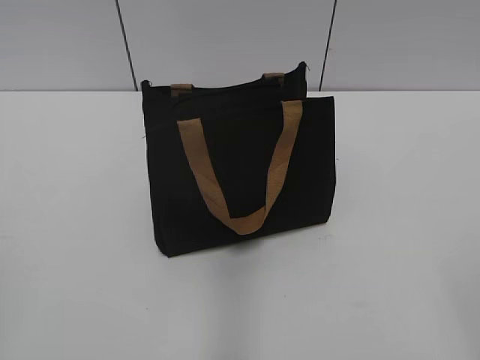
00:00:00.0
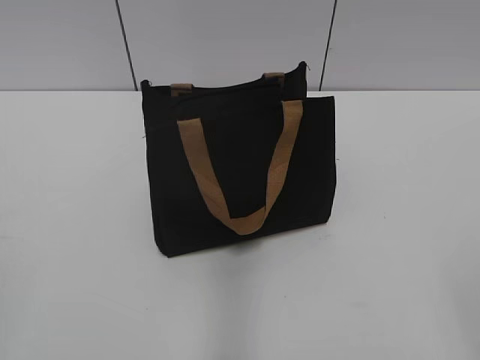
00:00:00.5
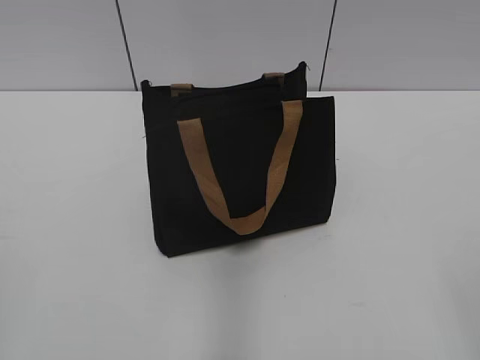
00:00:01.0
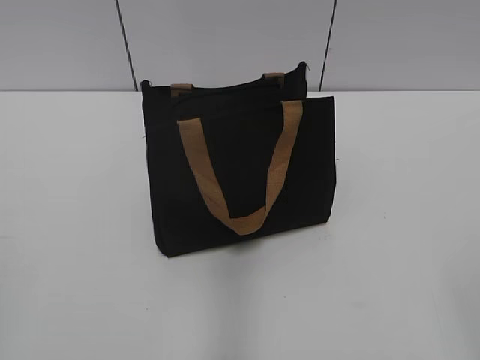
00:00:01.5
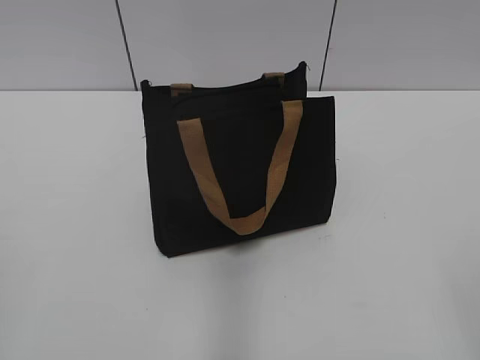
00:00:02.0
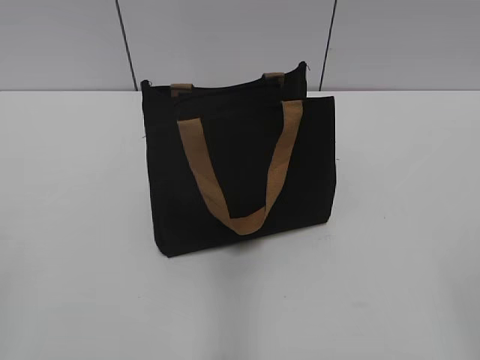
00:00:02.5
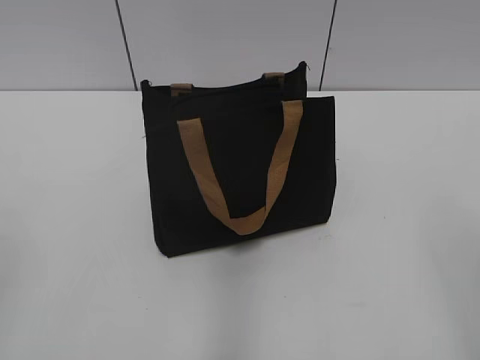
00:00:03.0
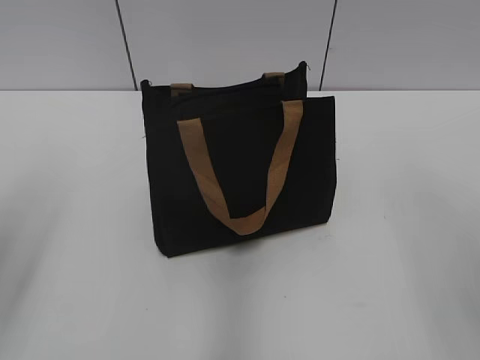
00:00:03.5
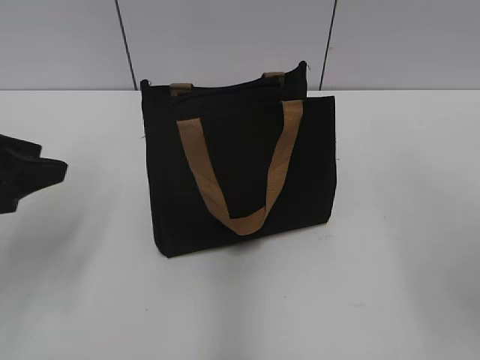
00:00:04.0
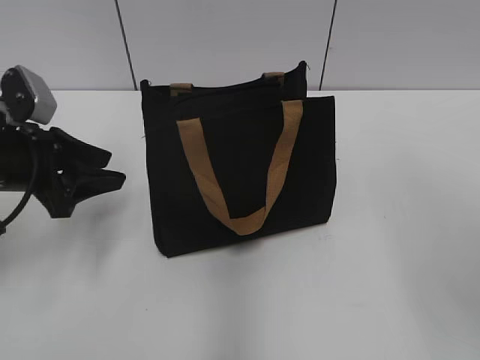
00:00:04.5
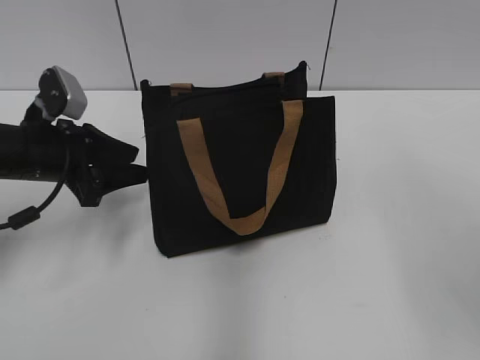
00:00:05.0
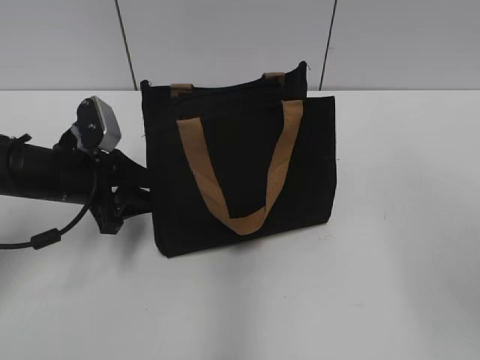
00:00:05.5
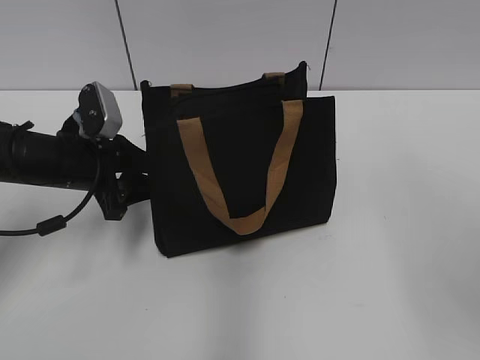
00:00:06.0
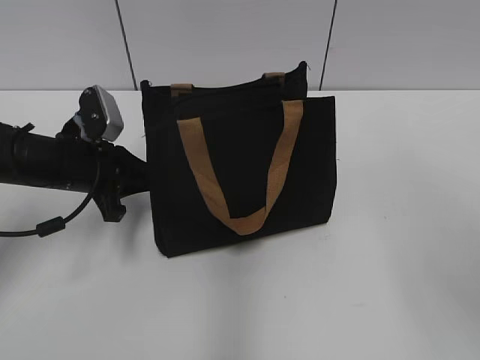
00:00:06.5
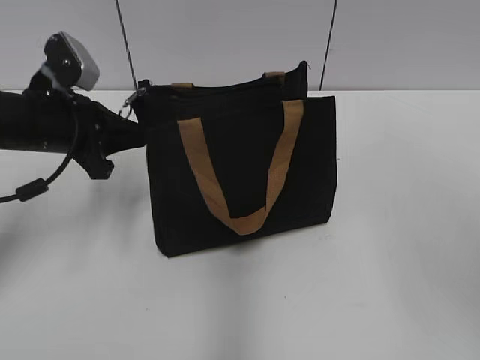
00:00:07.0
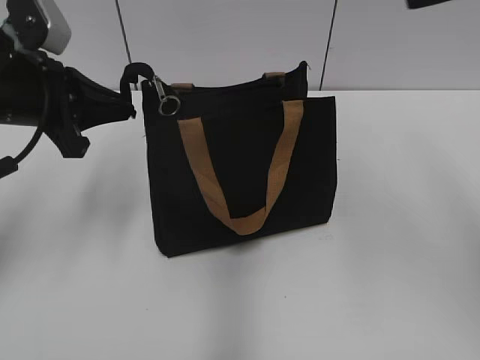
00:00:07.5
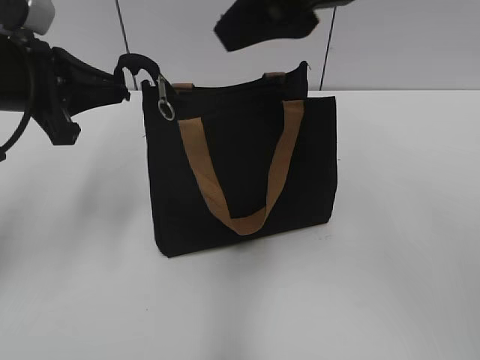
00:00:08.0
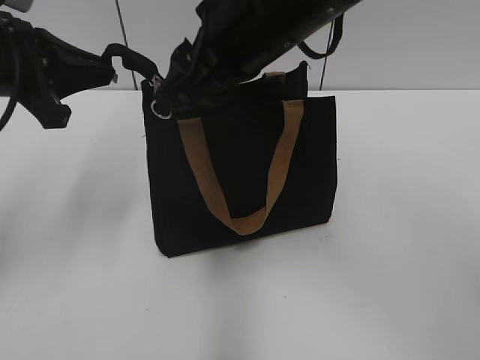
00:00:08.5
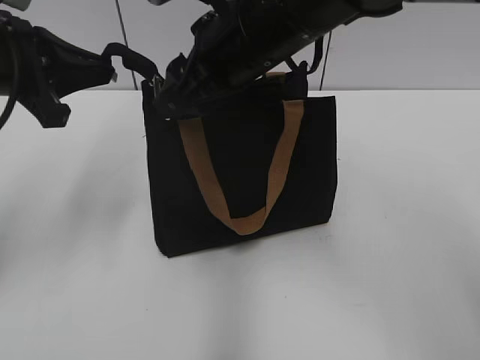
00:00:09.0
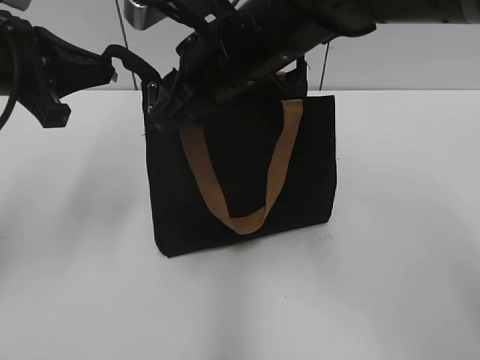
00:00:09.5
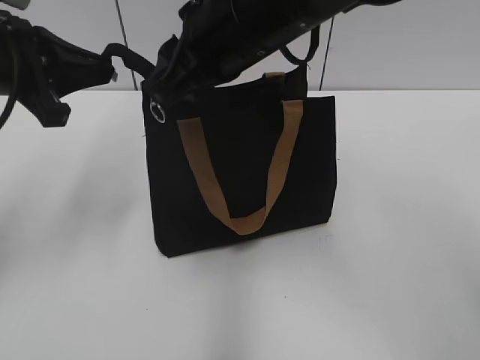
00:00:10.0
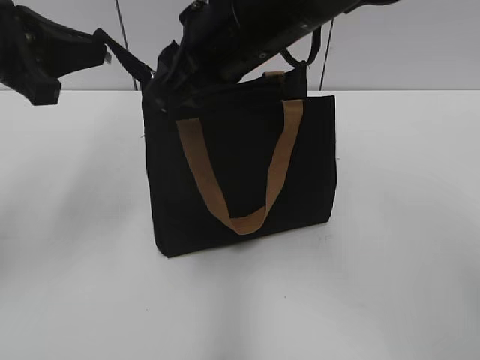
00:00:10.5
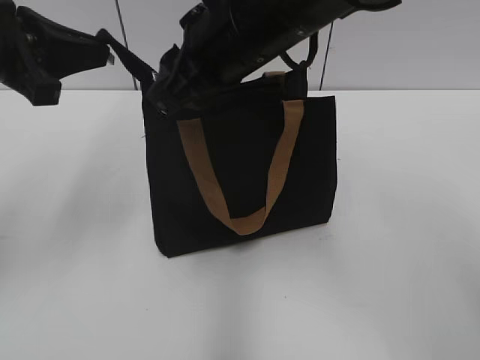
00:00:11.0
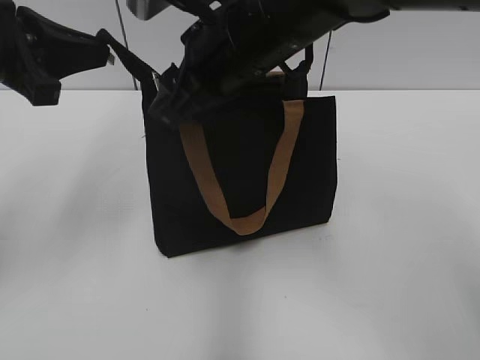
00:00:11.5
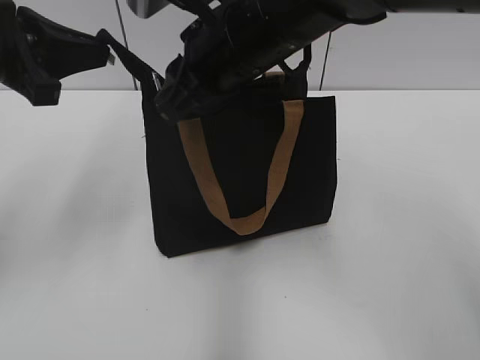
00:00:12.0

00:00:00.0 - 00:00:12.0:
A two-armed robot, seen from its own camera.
00:00:02.0 - 00:00:04.0: The left gripper heads forward, covering some 20 cm.
00:00:04.0 - 00:00:06.0: The left gripper shifts approximately 15 cm forward, downward and to the right.
00:00:06.0 - 00:00:08.0: The left gripper moves upward, roughly 15 cm, and closes. Meanwhile the right gripper shifts some 20 cm to the left and forward.
00:00:08.0 - 00:00:10.0: The right gripper goes approximately 10 cm downward and to the left, and closes up.
00:00:10.0 - 00:00:12.0: The right gripper opens, then closes once more.

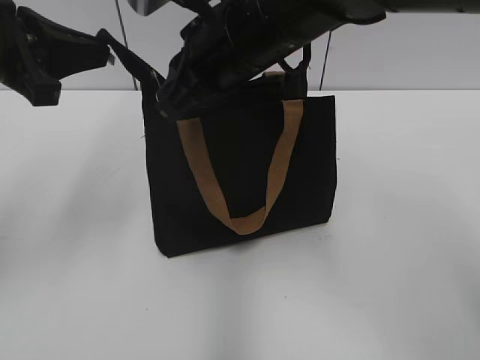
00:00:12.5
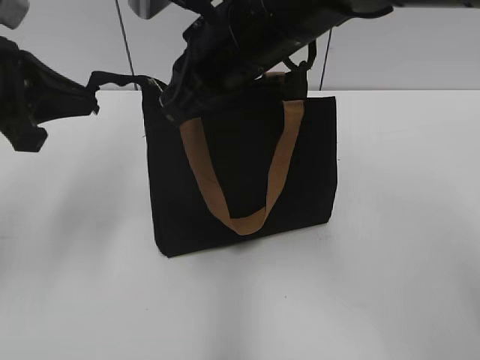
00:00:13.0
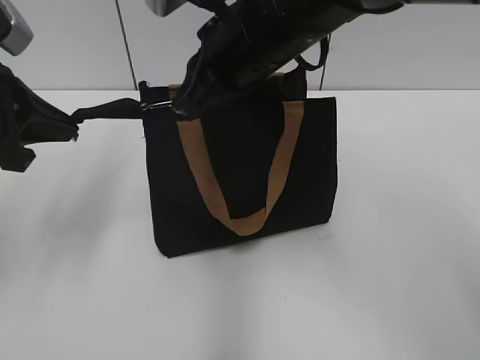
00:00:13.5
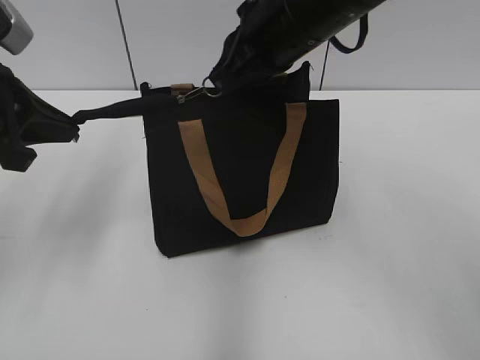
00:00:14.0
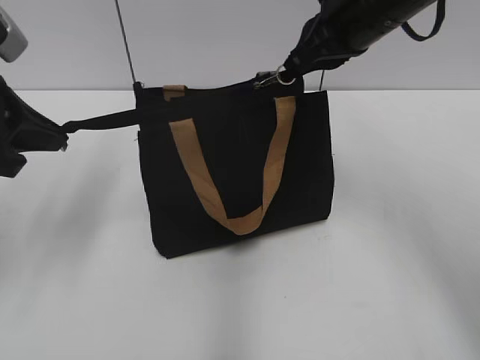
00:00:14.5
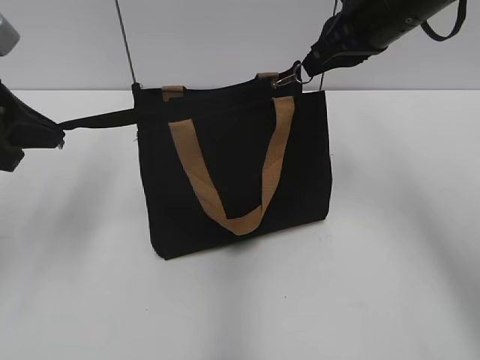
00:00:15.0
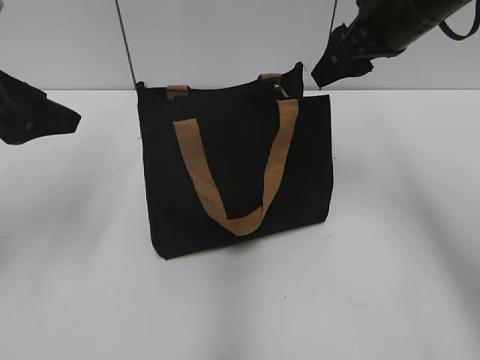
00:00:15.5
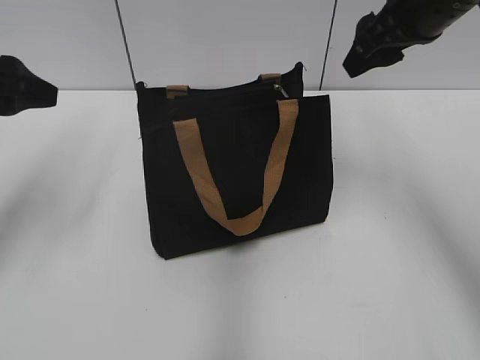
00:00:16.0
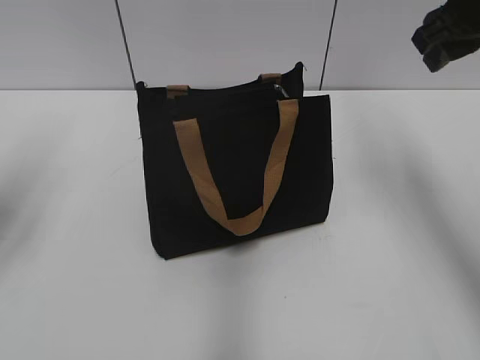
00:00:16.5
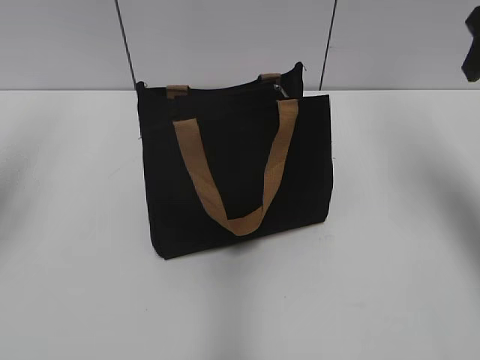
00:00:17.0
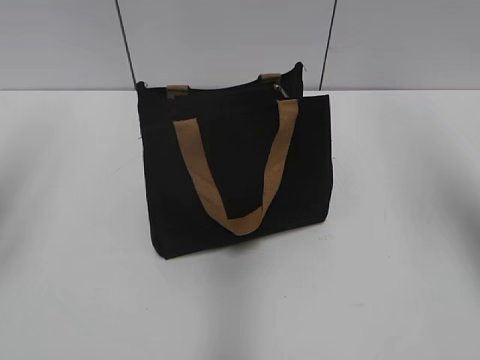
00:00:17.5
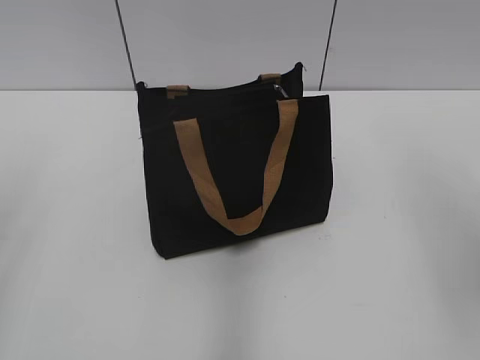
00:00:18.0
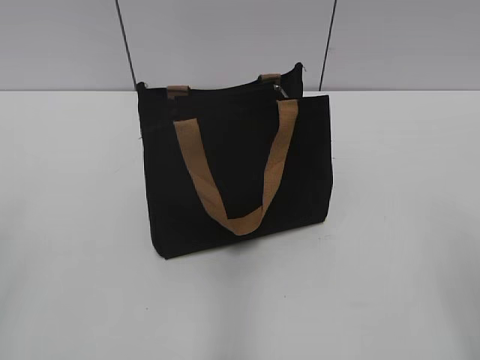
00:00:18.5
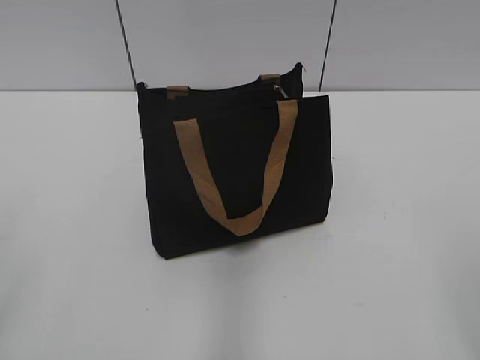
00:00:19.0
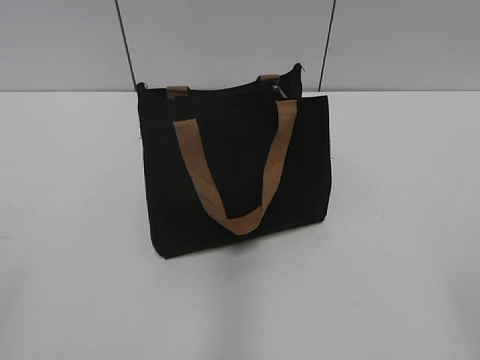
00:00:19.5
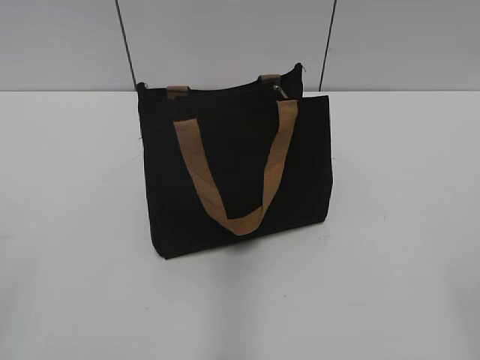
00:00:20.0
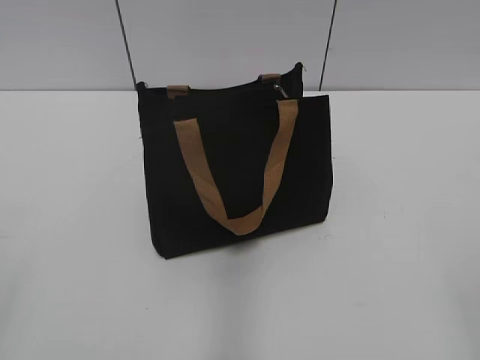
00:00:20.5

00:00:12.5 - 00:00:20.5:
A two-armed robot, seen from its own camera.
Step, 00:00:12.5 - 00:00:15.0: Zip up the bag with your right hand.
00:00:12.5 - 00:00:14.5: The right gripper moves to the right, roughly 10 cm.
00:00:14.5 - 00:00:16.5: The right gripper shifts approximately 10 cm to the right, and opens its fingers; the left gripper is displaced to the left by some 5 cm, and opens.
00:00:16.5 - 00:00:18.5: Both grippers move backward, some 25 cm.
